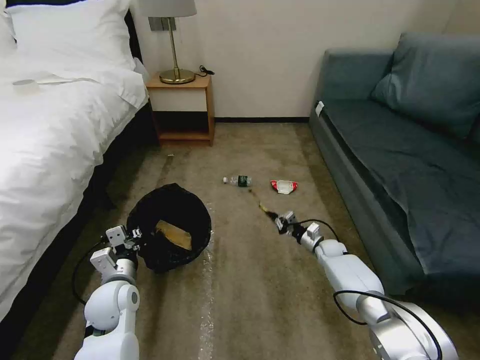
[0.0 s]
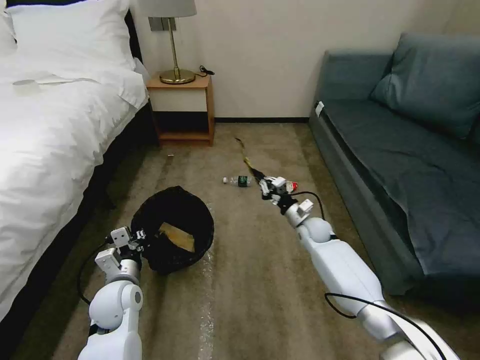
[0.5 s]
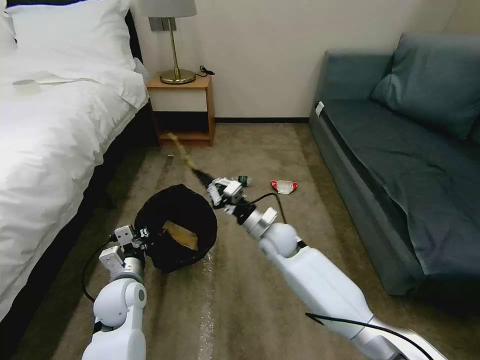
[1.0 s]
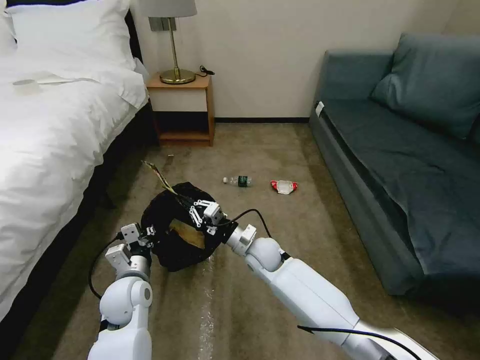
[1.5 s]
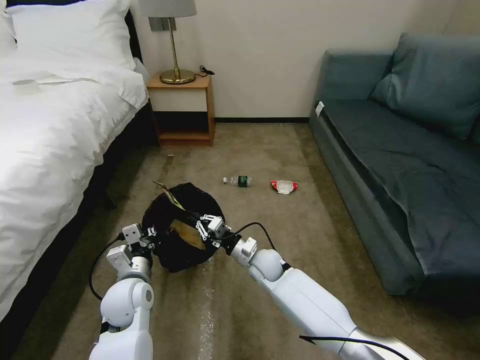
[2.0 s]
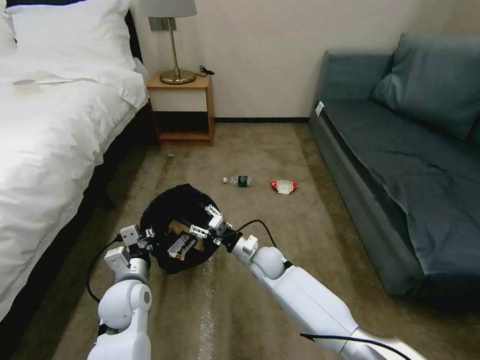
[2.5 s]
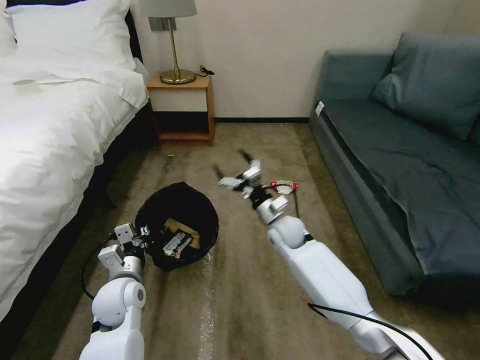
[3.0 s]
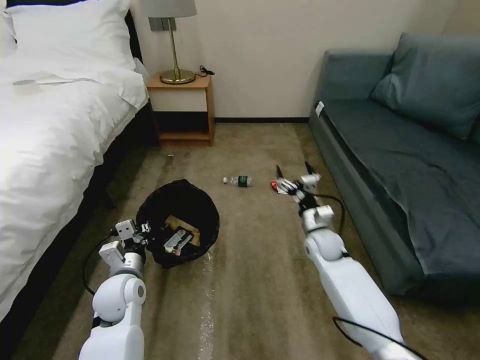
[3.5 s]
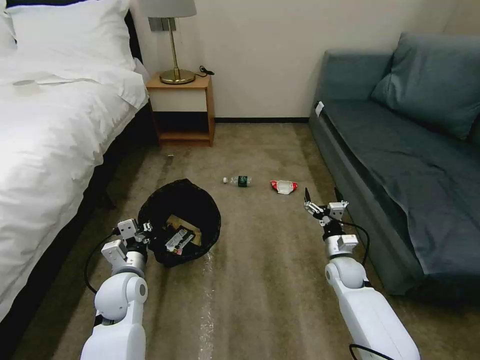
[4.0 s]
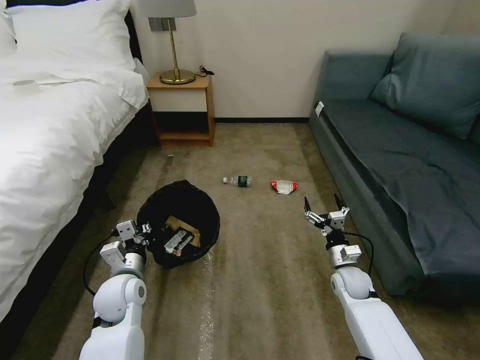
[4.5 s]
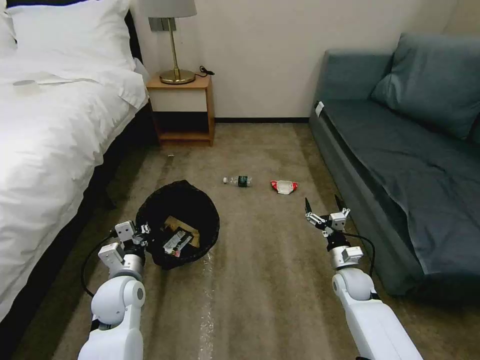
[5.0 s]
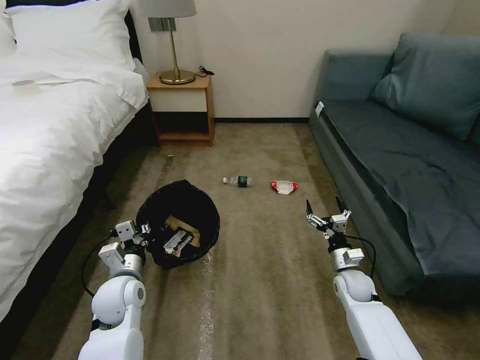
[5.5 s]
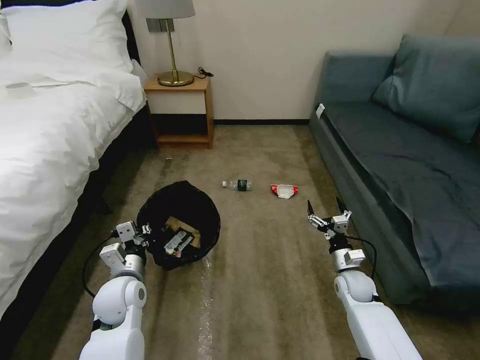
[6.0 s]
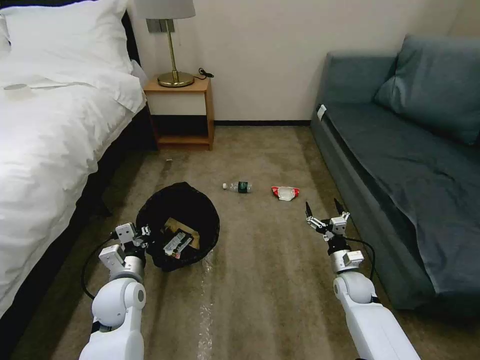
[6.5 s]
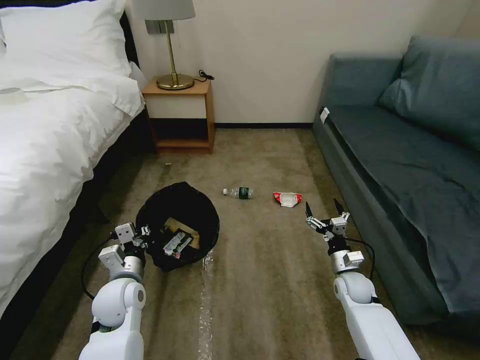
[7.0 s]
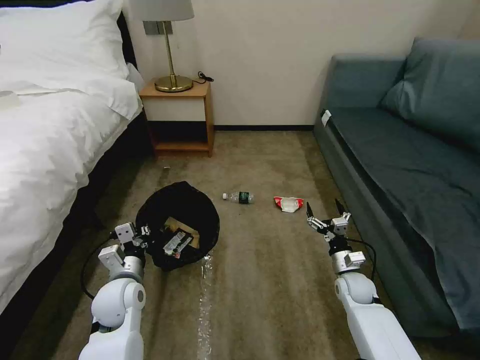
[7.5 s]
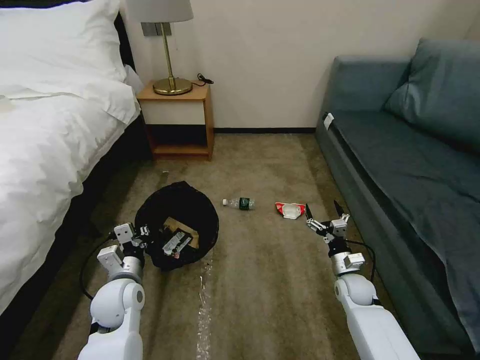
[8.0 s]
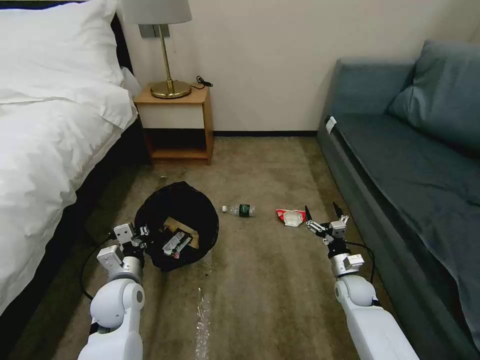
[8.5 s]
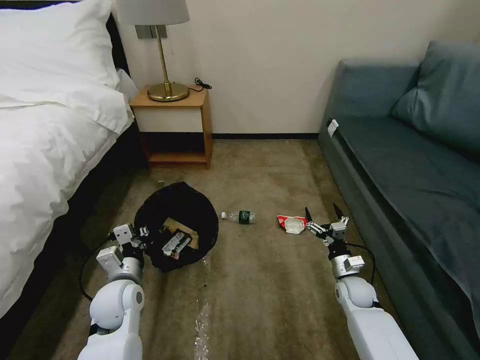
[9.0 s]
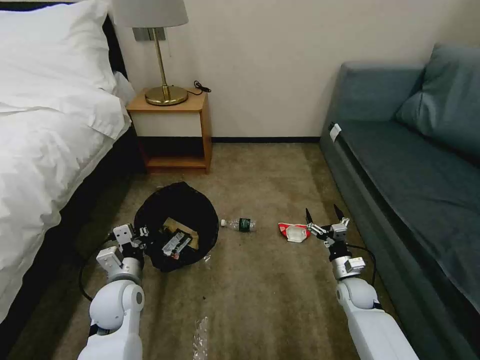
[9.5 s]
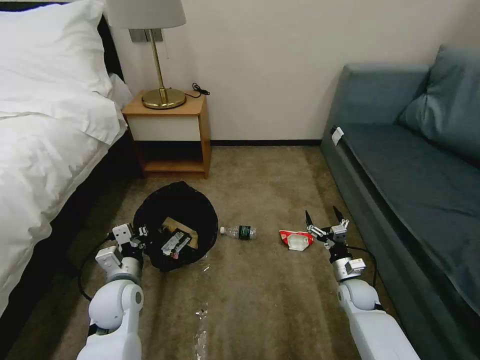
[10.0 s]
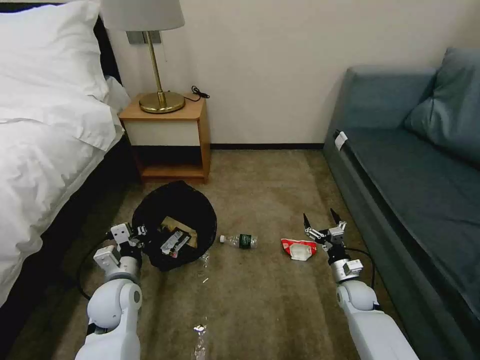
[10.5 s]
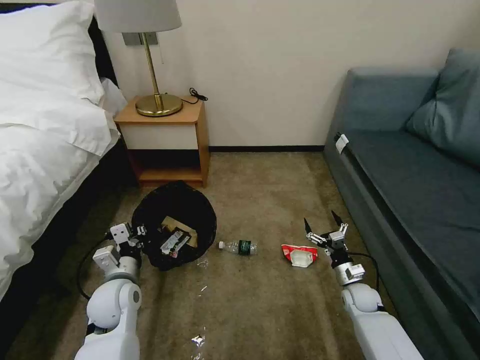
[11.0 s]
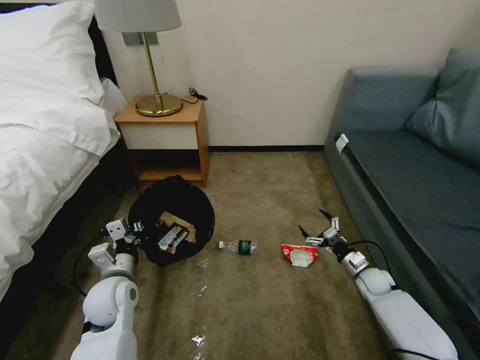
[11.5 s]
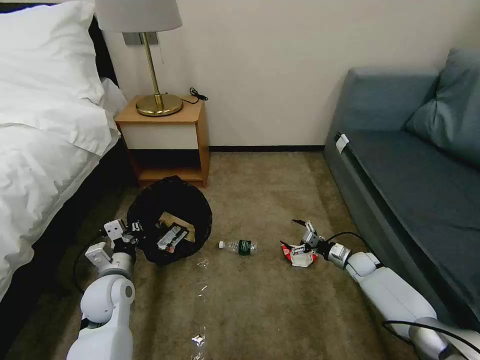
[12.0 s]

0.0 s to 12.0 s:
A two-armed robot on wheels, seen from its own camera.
Task of the whole recording: Pick up the trash bin, then pick up the garbage on the floor and place it into the trash bin.
0.0 to 2.0 s: The right gripper shifts about 25 cm to the left.
2.0 to 4.0 s: The right gripper heads to the right, covering about 25 cm, and opens.
4.0 to 6.0 s: The grippers move only a little.
6.0 to 8.0 s: The two grippers keep their place.
8.0 to 10.0 s: The grippers stay close to where they were, moving slightly.
10.0 to 12.0 s: The right gripper heads forward and to the right, covering some 10 cm.

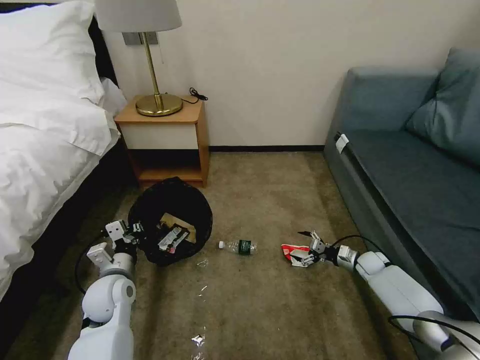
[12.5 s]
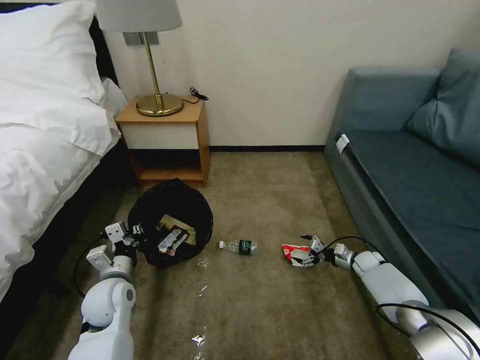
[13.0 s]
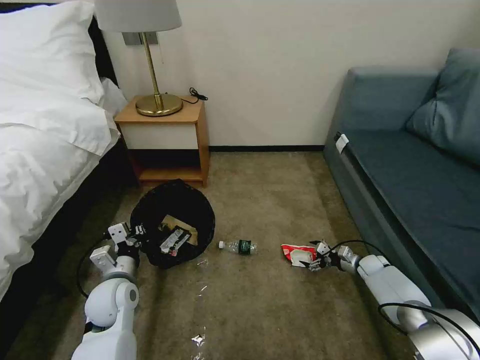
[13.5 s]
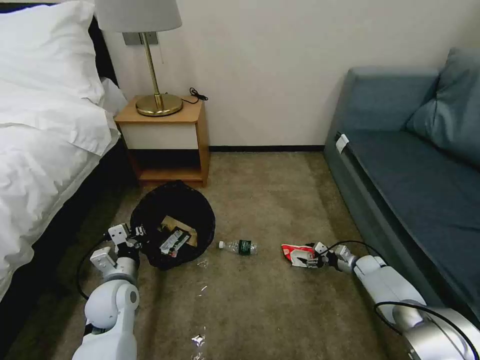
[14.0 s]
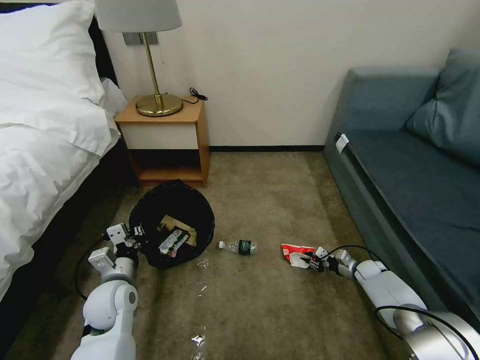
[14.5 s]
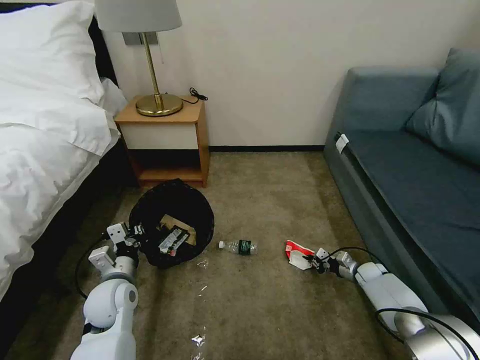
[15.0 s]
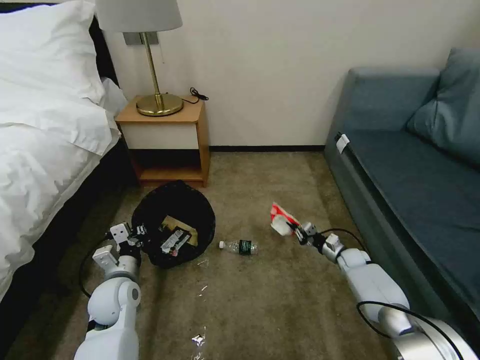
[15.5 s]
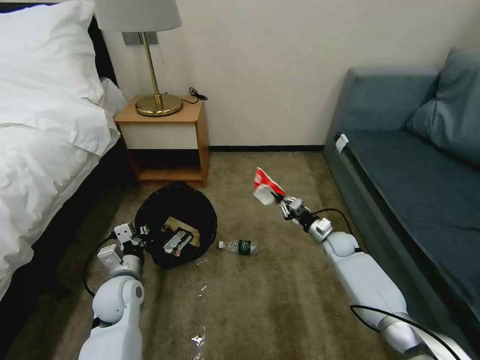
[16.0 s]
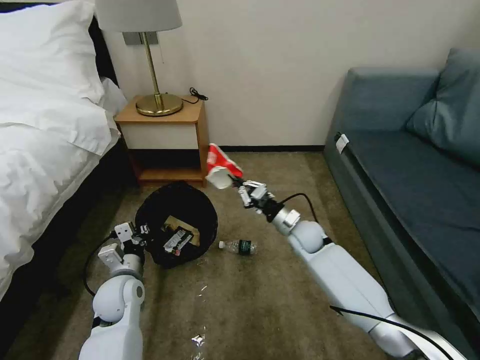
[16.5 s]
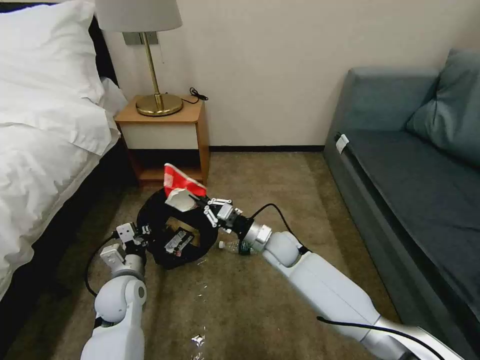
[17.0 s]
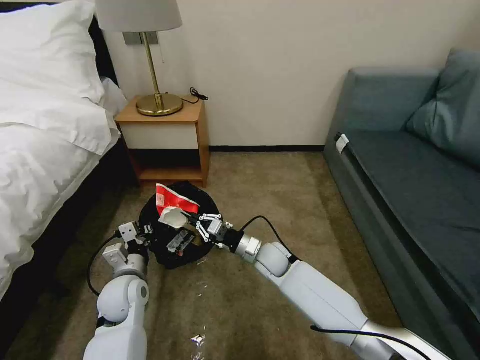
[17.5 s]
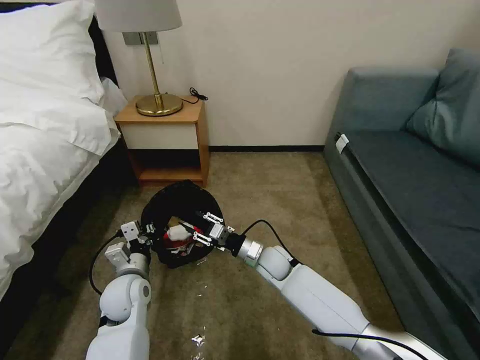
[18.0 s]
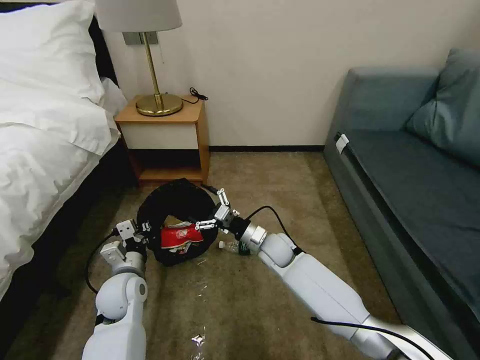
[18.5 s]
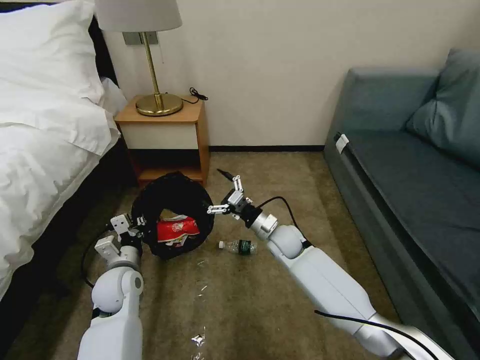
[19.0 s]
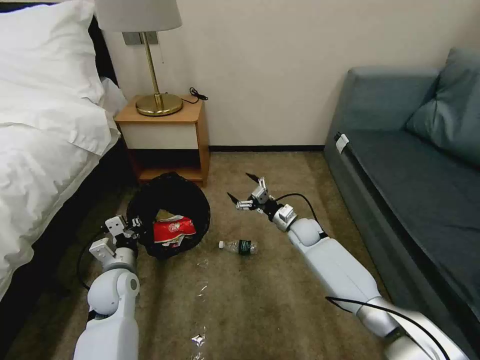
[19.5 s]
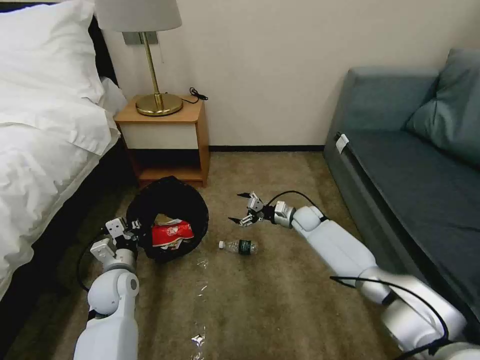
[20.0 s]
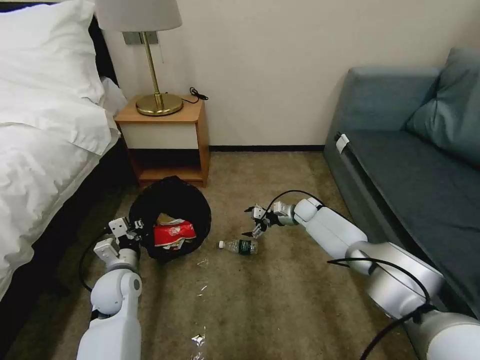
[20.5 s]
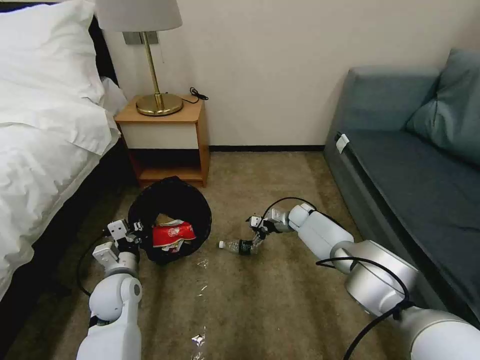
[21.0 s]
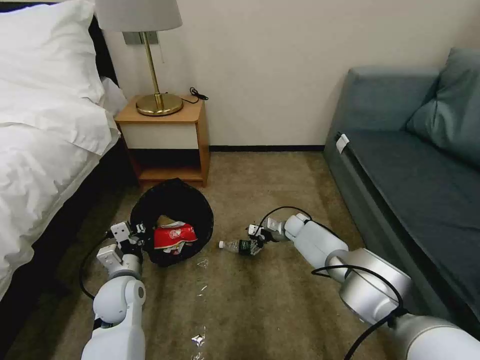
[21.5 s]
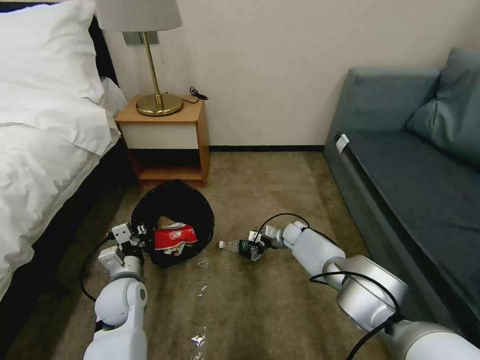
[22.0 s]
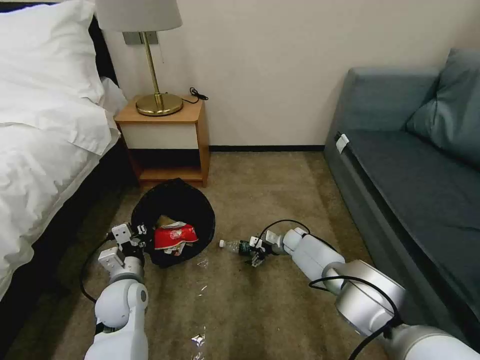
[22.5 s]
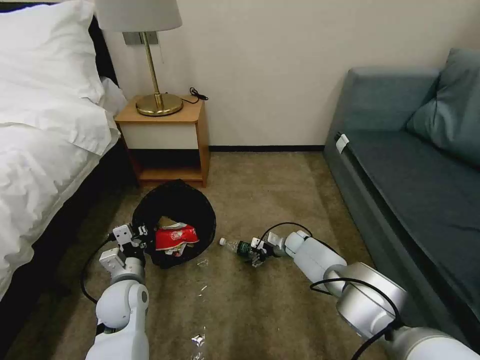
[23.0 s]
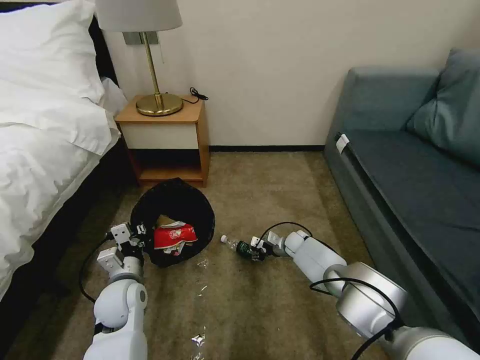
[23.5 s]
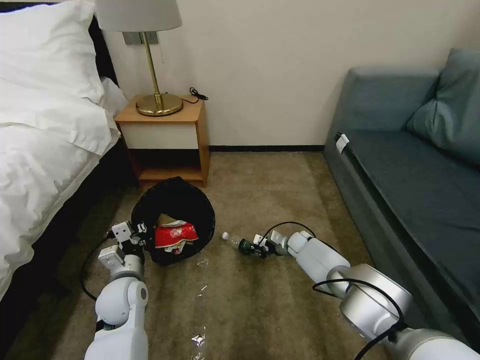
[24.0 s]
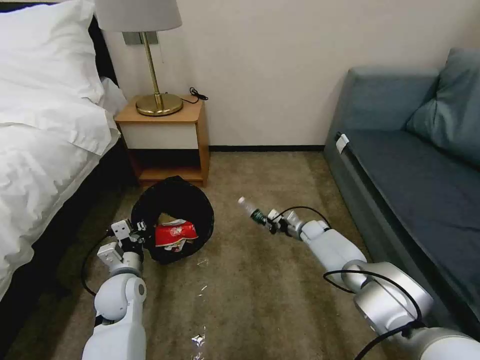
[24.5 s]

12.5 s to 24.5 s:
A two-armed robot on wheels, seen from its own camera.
Task of the whole recording: Pick up the trash bin, then pick up the garbage on the floor and place it into the trash bin.
12.5 to 14.5 s: The right gripper closes its fingers.
14.5 to 16.5 s: The right gripper goes about 30 cm to the left and upward.
16.5 to 18.5 s: The right gripper goes roughly 10 cm to the left, and opens.
18.5 to 20.5 s: The right gripper travels forward and to the right by some 20 cm.
20.5 to 22.5 s: The right gripper heads downward and backward, covering some 10 cm.
22.5 to 24.5 s: The right gripper moves to the right, approximately 5 cm, and closes.

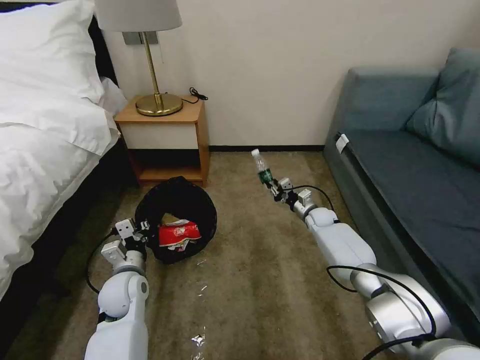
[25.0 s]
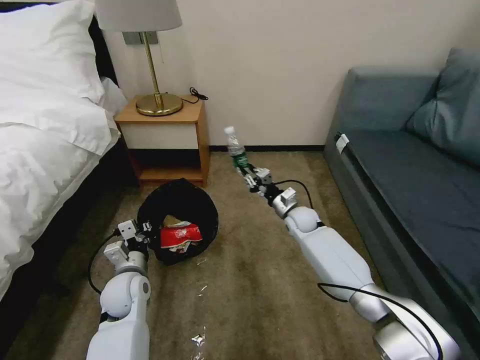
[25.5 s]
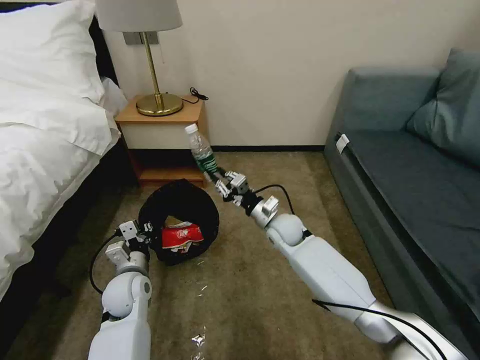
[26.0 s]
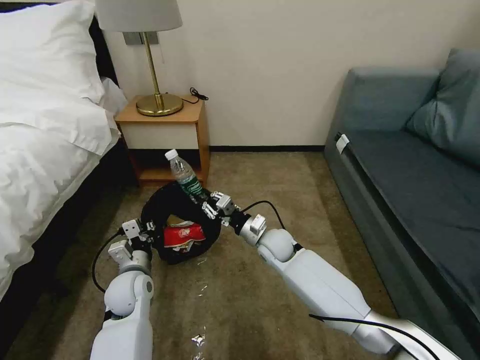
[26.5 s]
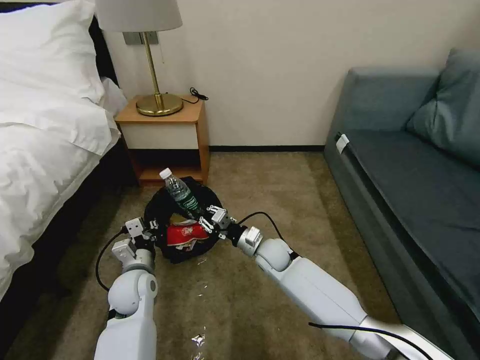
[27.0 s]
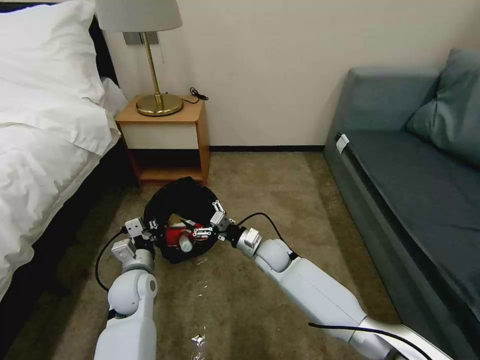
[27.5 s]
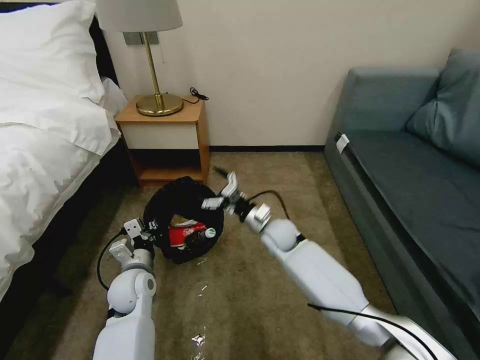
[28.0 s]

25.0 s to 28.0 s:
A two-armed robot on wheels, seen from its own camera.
Task of the whole recording: Pick up the trash bin, then pick up the garbage on the floor and place it into the trash bin.
25.0 to 26.5 s: The right gripper goes some 20 cm to the left and backward.
26.5 to 28.0 s: The right gripper opens up.
